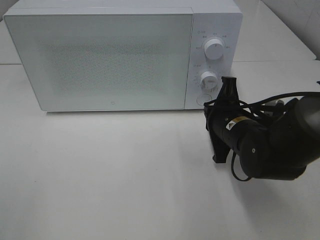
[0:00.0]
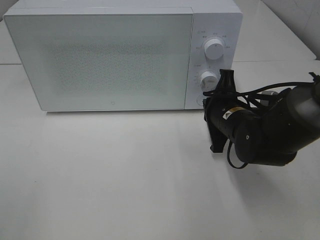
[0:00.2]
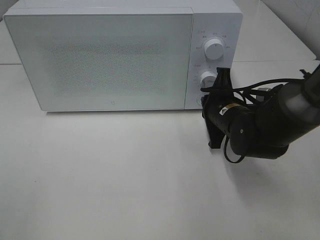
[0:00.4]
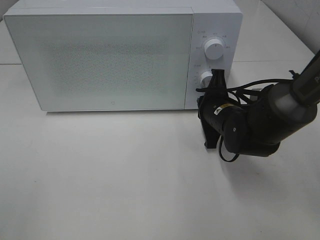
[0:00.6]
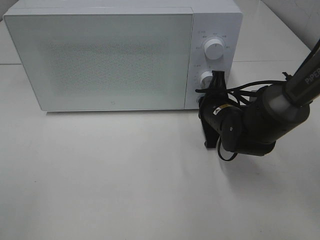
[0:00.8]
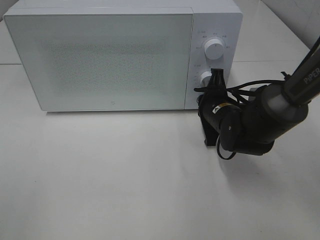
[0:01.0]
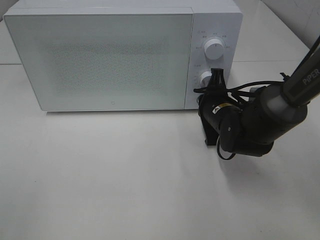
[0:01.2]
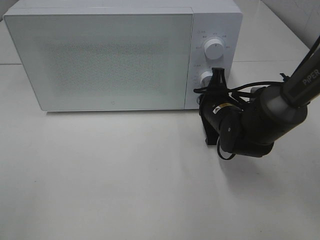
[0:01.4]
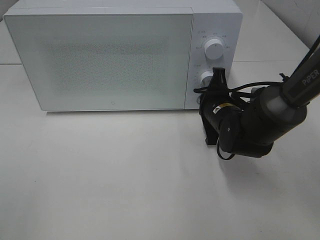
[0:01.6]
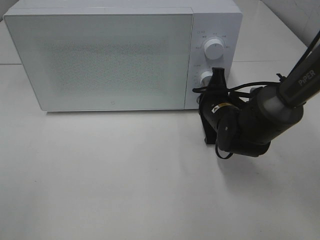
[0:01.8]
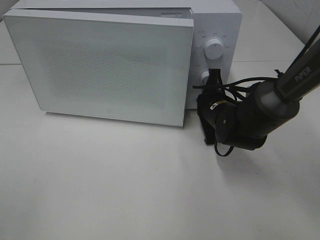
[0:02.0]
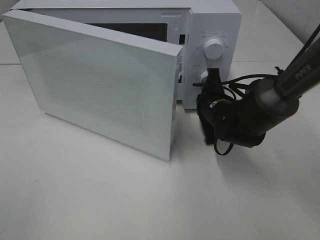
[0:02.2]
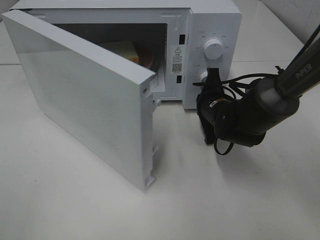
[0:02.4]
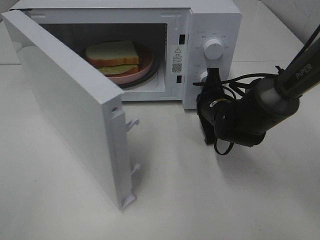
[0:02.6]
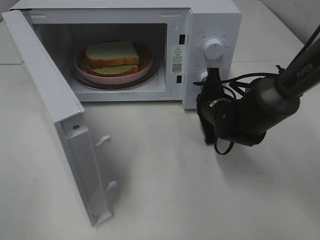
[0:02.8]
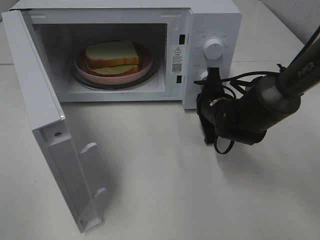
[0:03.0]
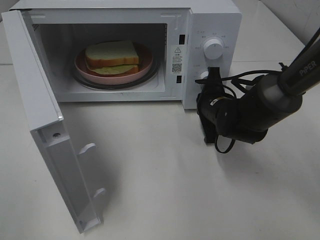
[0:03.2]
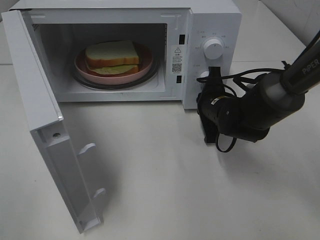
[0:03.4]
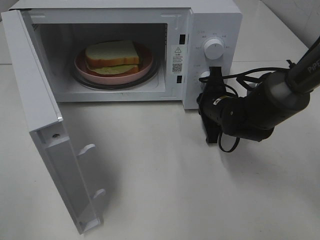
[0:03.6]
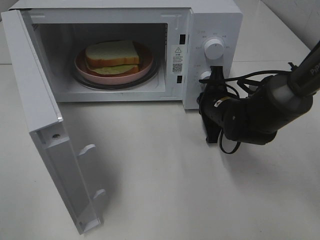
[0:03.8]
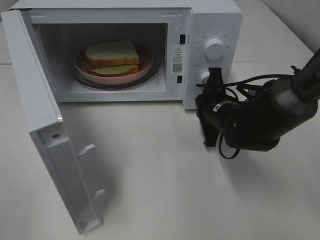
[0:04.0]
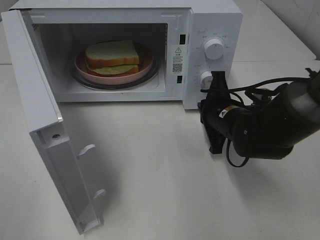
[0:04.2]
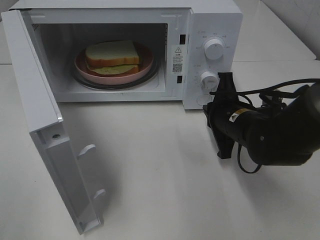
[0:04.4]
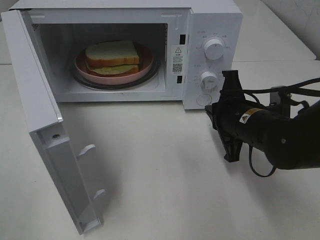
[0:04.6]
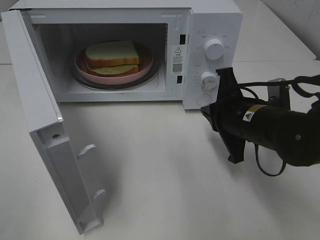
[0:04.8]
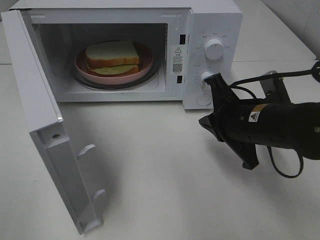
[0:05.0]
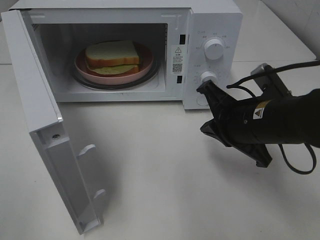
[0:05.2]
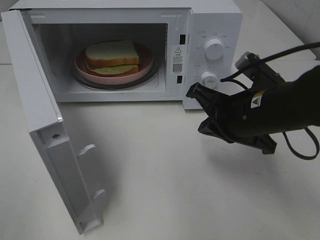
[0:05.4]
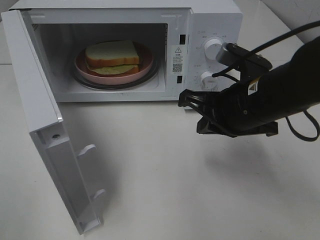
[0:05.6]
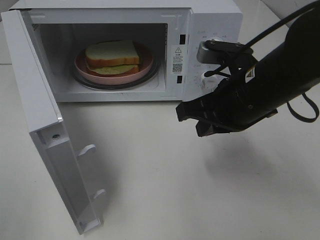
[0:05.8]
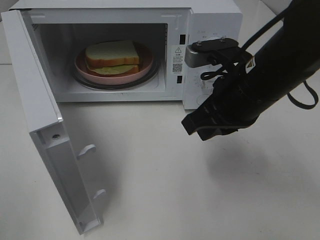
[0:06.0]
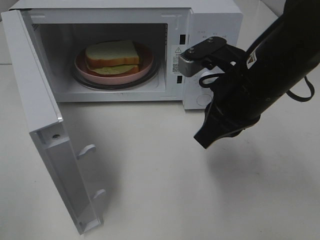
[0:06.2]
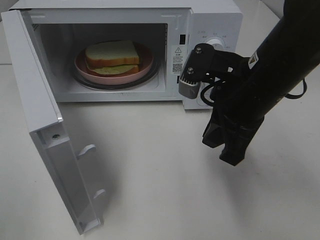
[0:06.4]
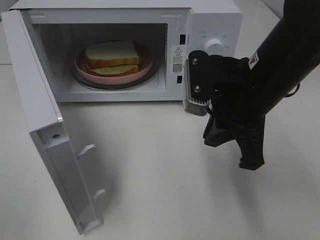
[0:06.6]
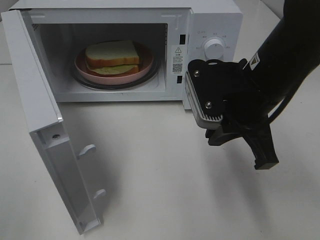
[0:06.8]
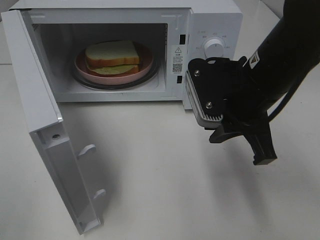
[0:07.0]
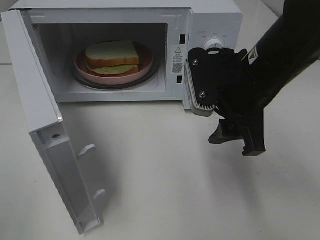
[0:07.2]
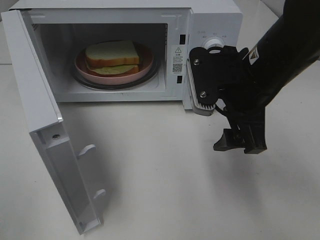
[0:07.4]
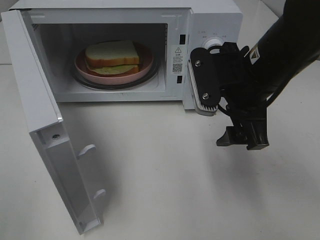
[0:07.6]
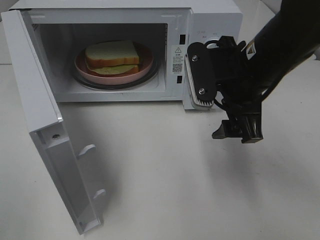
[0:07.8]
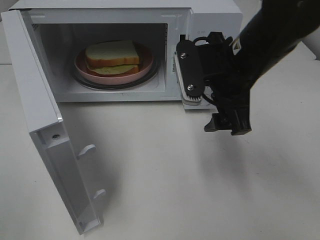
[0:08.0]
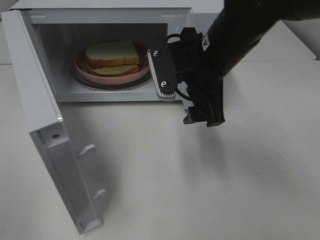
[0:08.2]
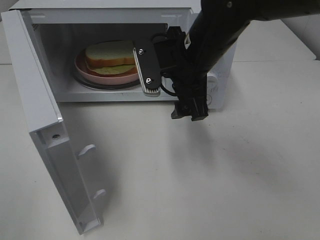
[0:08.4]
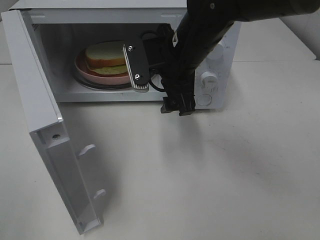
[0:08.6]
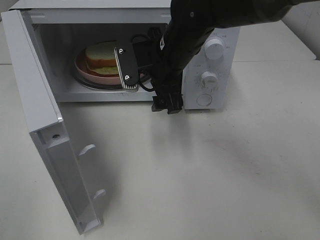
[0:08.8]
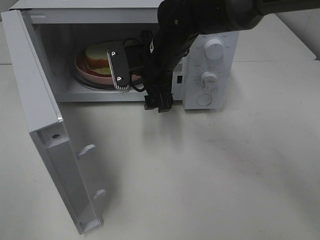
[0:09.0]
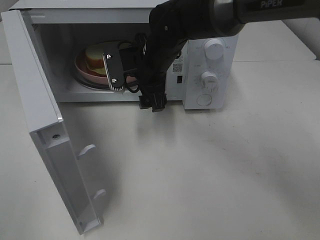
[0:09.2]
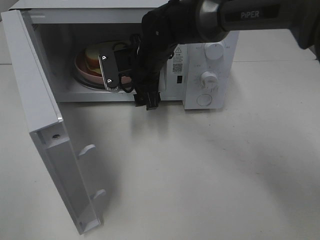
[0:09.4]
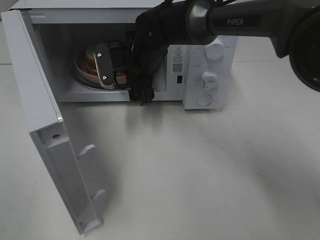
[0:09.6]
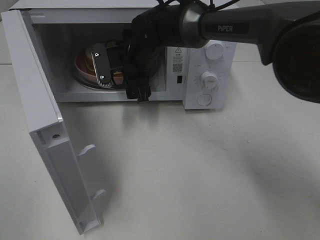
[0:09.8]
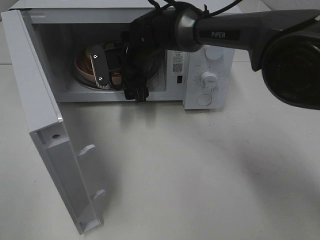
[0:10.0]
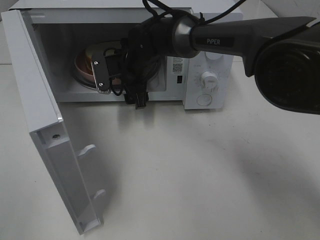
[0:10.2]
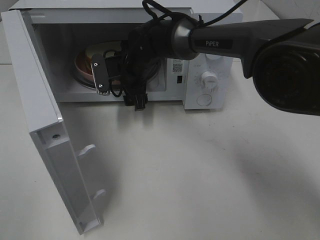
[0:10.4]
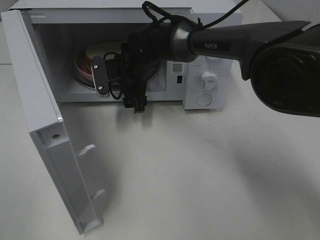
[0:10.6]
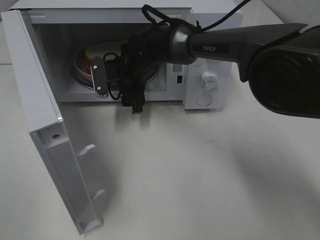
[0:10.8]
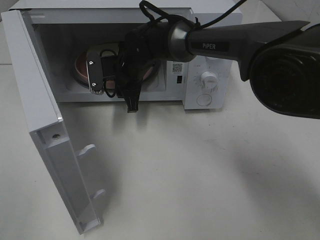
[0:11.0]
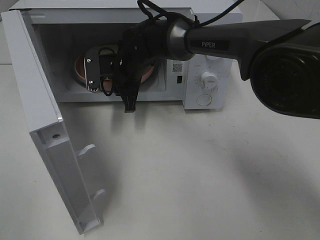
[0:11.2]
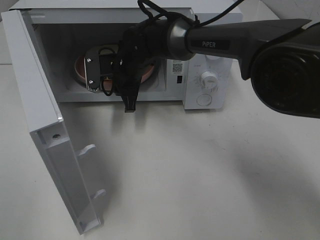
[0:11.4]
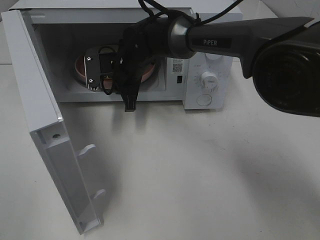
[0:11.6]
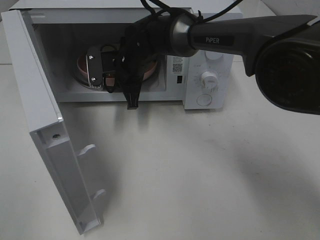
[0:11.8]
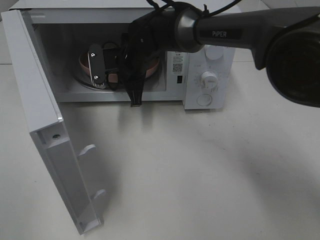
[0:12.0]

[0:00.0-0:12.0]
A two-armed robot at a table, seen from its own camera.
Task of the whole recording: Heat Sandwich.
Step, 0:00.0 to 0:04.4: Right hand: press the switch.
0:00.0 to 0:01.6: The right gripper shifts some 5 cm forward.
0:03.0 to 0:04.4: The right gripper shifts approximately 5 cm backward.
0:04.4 to 0:06.0: The right gripper goes approximately 10 cm upward.
0:06.0 to 0:07.6: The right gripper opens its fingers.
0:07.6 to 0:09.0: The right gripper is displaced to the left and forward by roughly 15 cm.
0:09.0 to 0:10.4: The right gripper travels forward and downward by approximately 10 cm.
0:10.4 to 0:12.0: The right gripper closes.

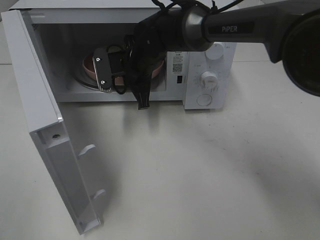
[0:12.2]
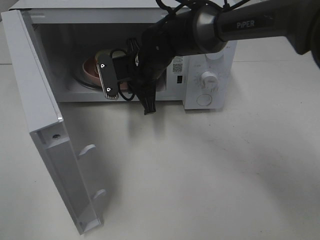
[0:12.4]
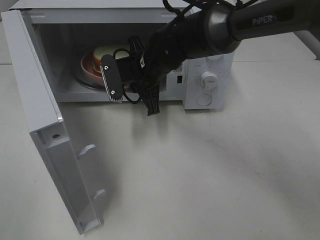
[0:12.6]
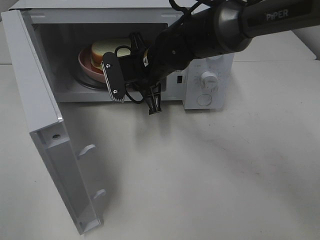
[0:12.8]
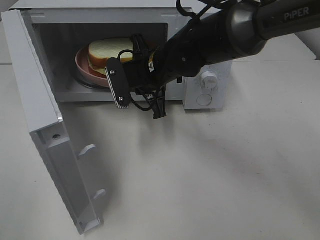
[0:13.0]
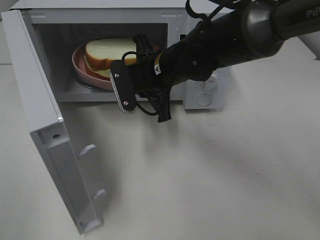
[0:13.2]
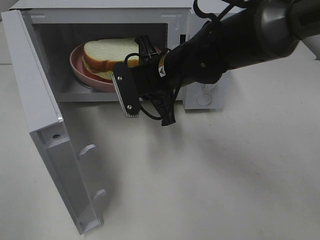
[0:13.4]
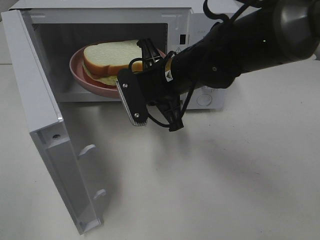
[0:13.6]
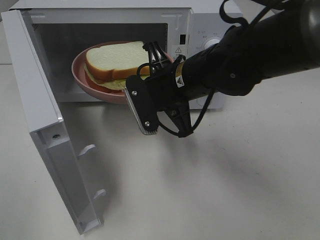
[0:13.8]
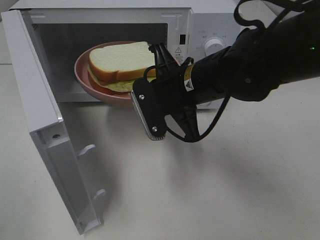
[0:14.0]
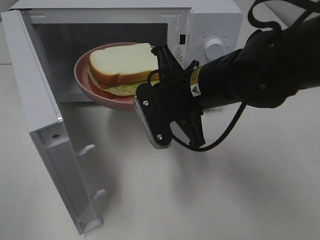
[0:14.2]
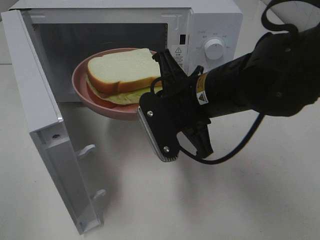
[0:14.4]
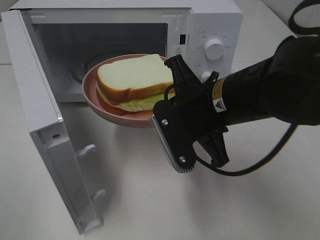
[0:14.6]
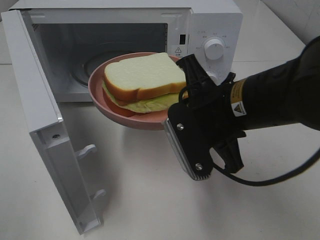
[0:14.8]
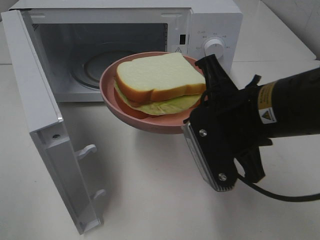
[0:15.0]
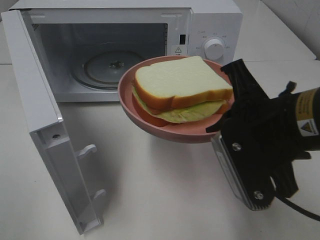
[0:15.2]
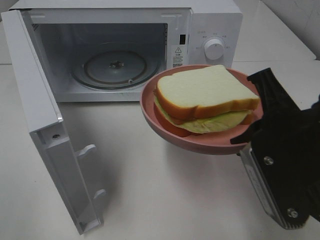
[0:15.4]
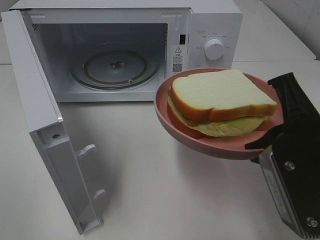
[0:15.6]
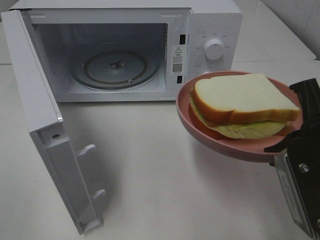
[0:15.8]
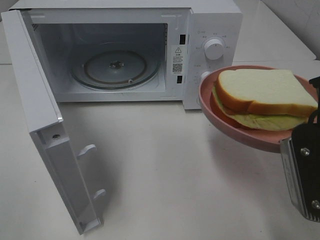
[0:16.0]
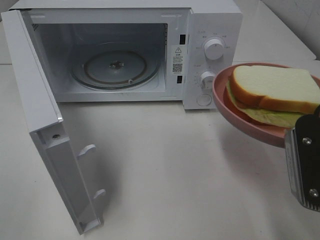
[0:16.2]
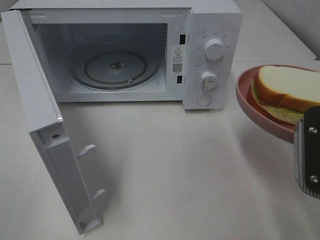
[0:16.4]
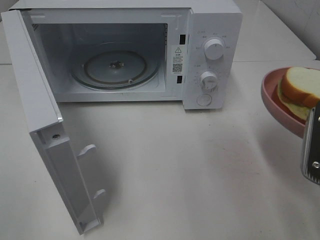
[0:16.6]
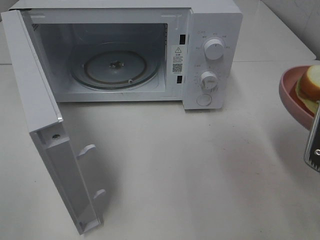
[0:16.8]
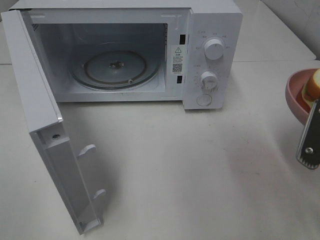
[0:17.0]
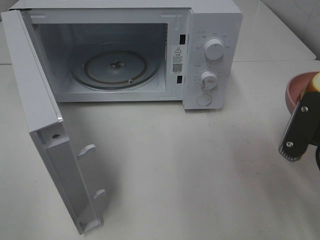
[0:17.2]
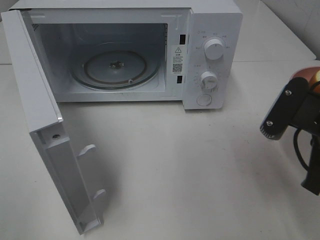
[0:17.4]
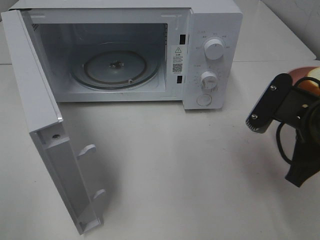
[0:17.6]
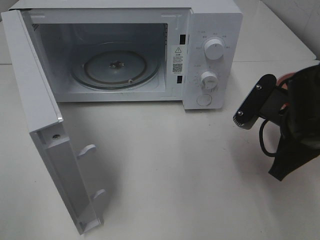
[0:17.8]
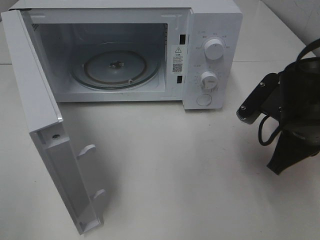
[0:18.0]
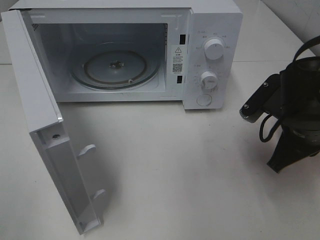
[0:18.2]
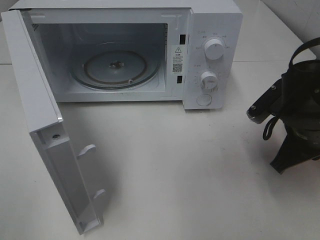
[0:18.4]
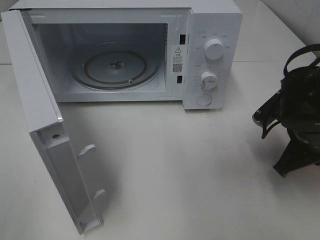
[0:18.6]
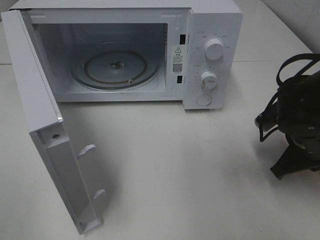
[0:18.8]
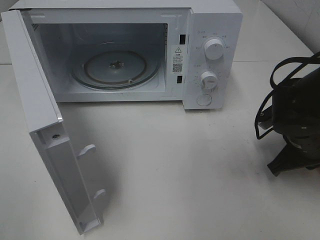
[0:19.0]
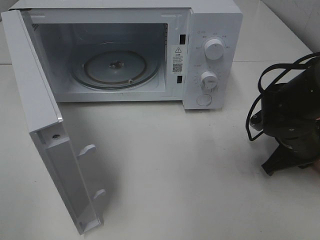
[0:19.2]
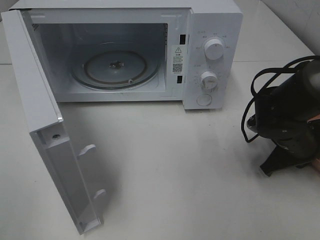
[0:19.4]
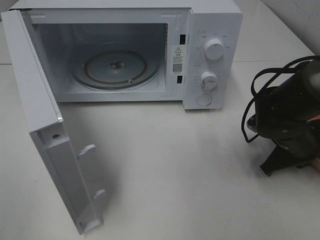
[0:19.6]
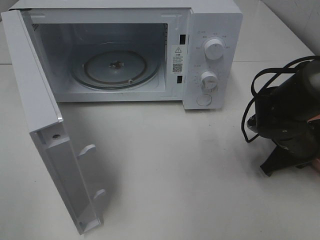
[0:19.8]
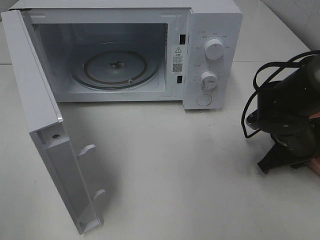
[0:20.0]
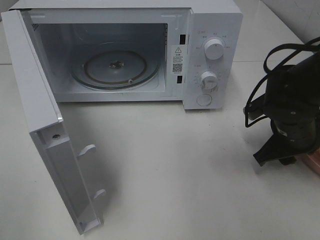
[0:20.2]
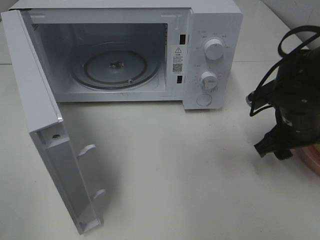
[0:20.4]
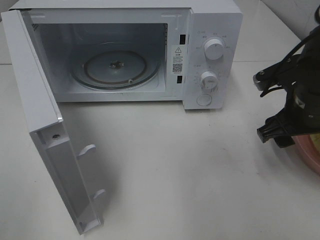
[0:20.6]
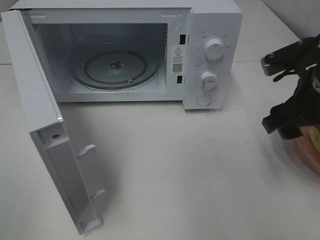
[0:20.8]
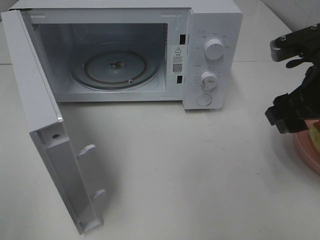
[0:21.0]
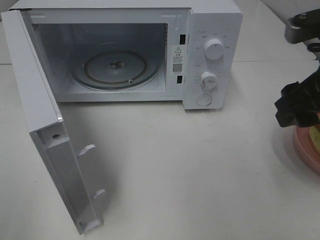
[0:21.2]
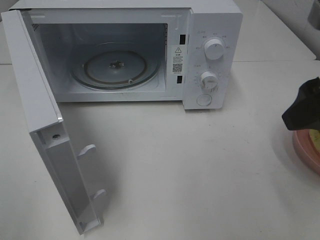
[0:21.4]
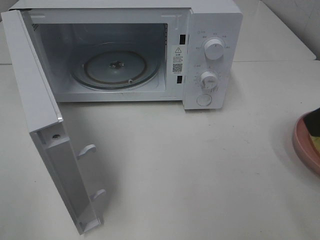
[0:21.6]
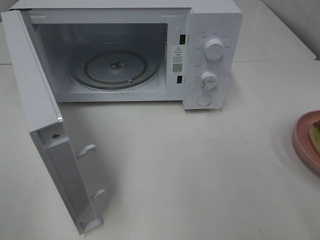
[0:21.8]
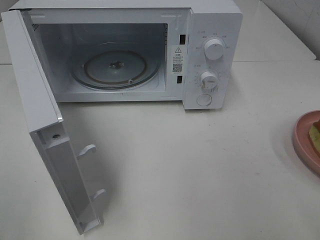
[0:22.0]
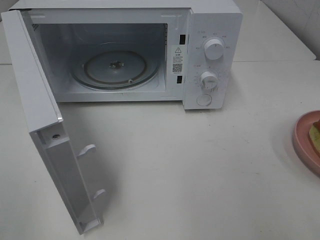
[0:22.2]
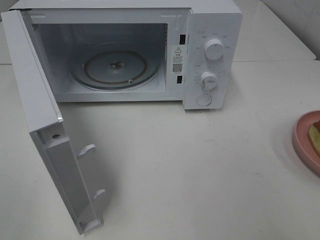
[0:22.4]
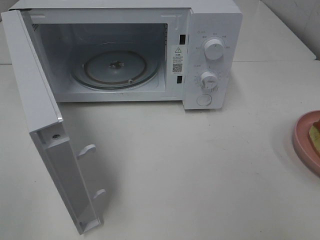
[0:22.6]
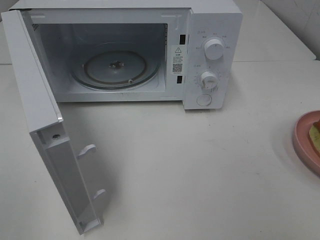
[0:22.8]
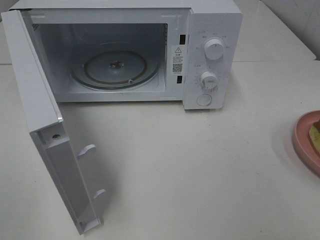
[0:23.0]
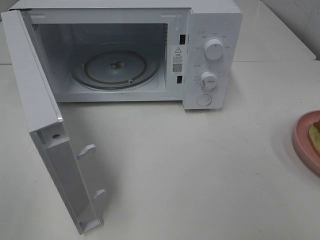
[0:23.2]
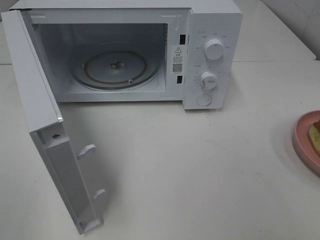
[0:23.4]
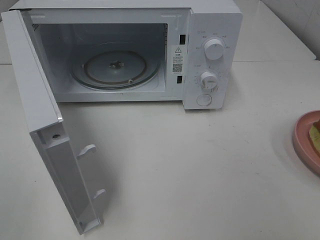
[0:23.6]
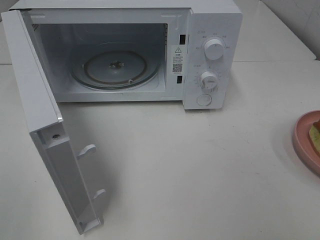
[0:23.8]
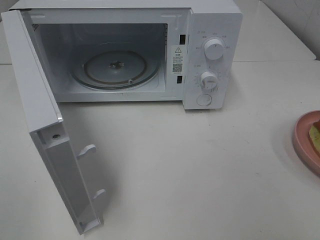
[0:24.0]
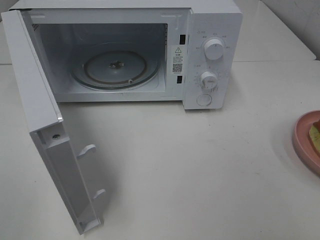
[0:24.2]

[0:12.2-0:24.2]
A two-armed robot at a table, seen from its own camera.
Task of the whole recording: Heat Sandwich.
Step, 0:12.2 to 0:21.2: Right hand: place the plate on the table.
0:12.2 to 0:13.8: The right gripper goes roughly 15 cm backward and to the right.
0:13.8 to 0:15.2: The right gripper travels backward and to the right by about 15 cm.
0:15.2 to 0:16.6: The right gripper heads to the right, covering roughly 10 cm.
0:16.6 to 0:18.2: The right gripper goes approximately 10 cm forward and downward.
0:18.2 to 0:19.8: The right gripper is displaced downward by approximately 10 cm.
0:19.8 to 0:21.2: The right gripper travels upward by some 20 cm, and opens its fingers.
0:21.2 to 0:22.6: The right gripper heads backward, covering roughly 20 cm.
